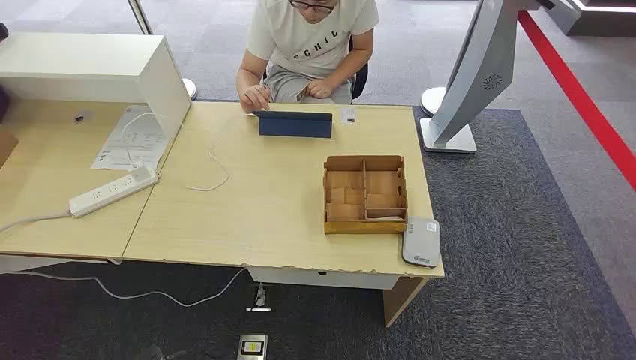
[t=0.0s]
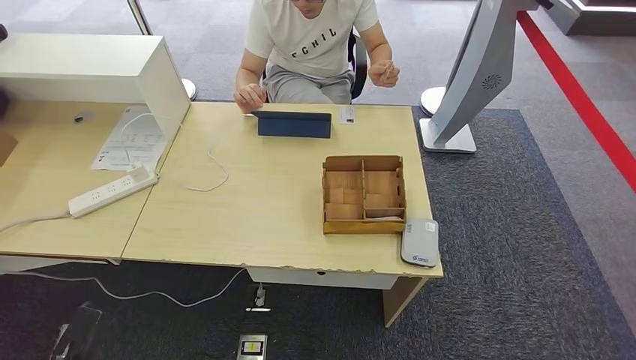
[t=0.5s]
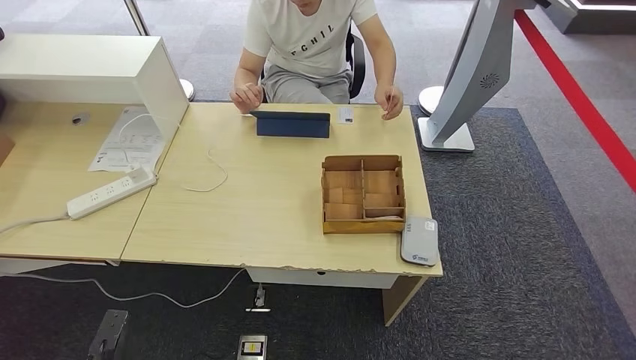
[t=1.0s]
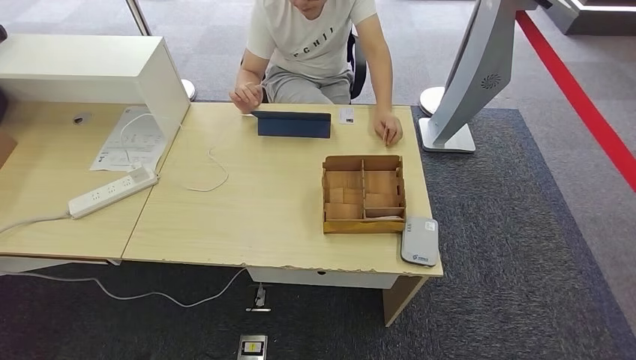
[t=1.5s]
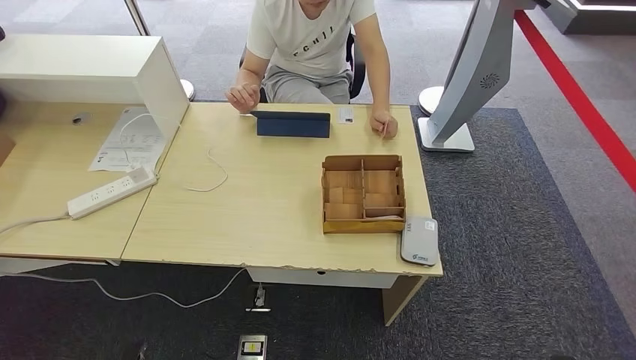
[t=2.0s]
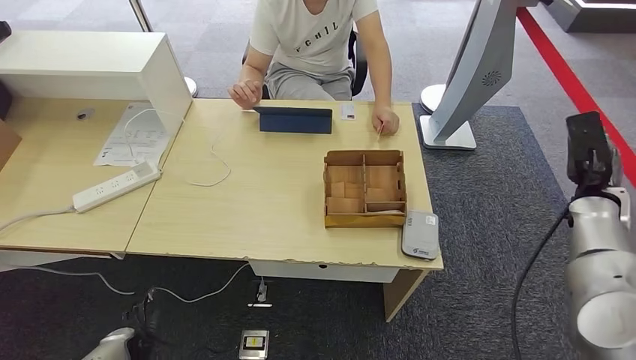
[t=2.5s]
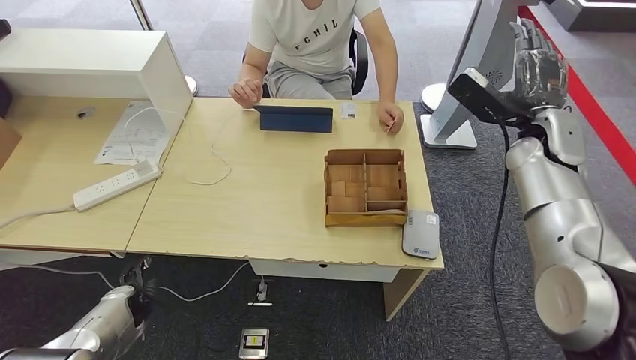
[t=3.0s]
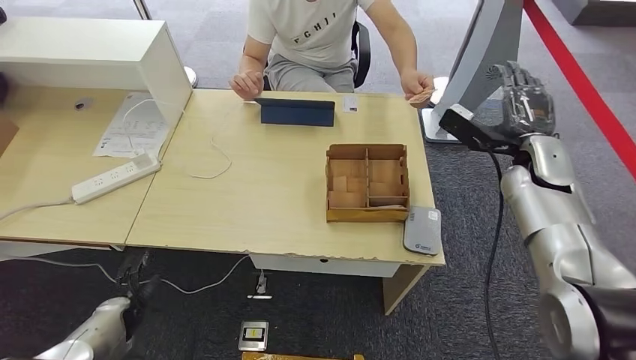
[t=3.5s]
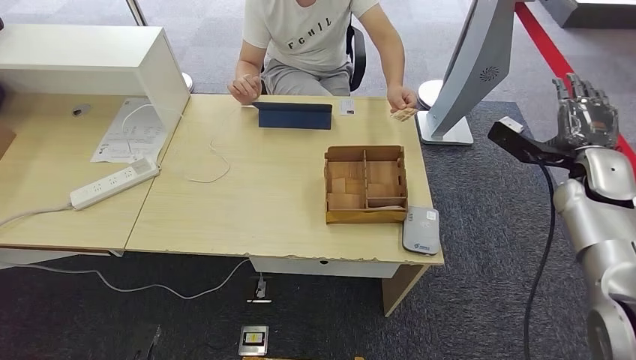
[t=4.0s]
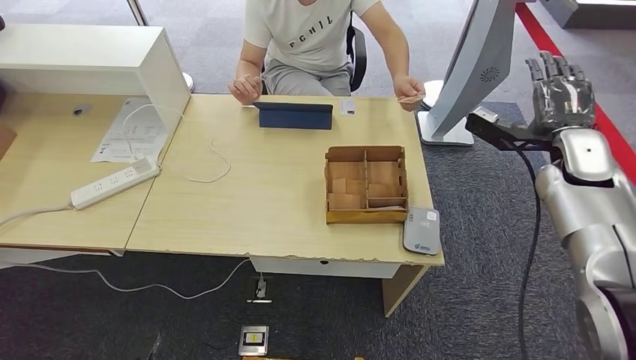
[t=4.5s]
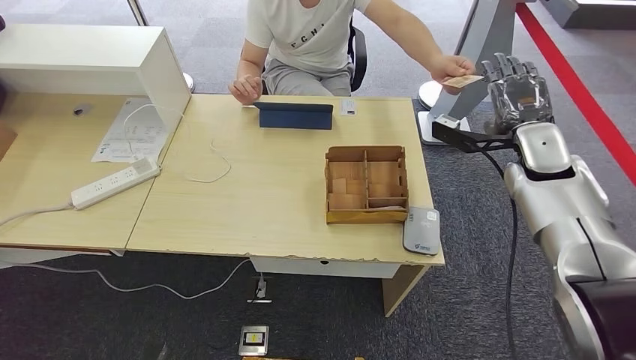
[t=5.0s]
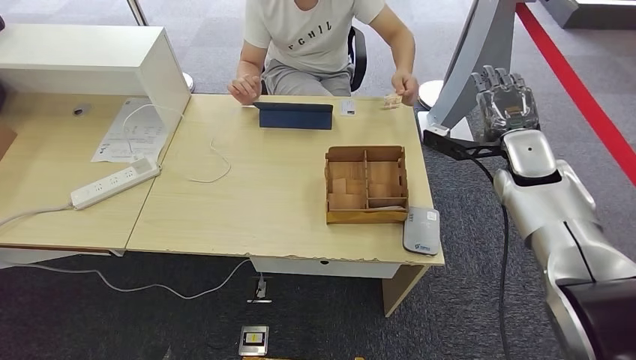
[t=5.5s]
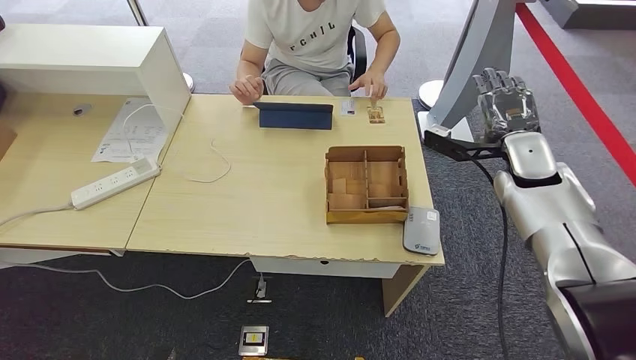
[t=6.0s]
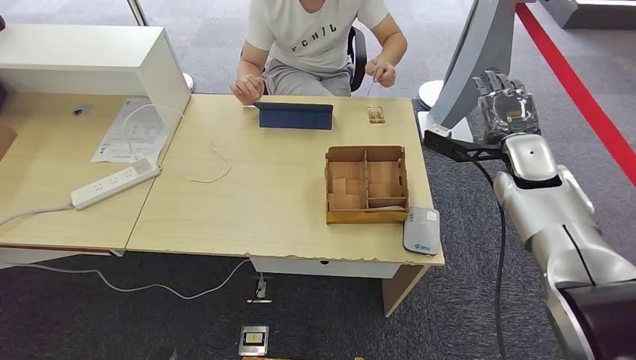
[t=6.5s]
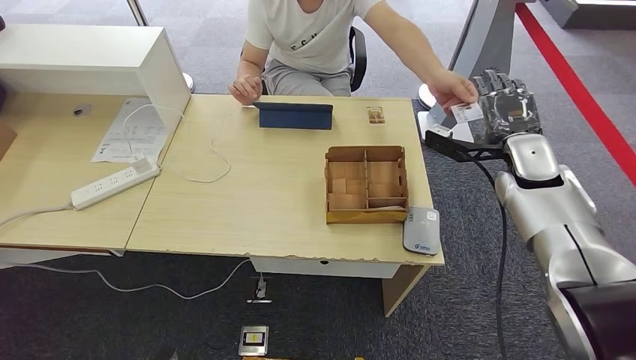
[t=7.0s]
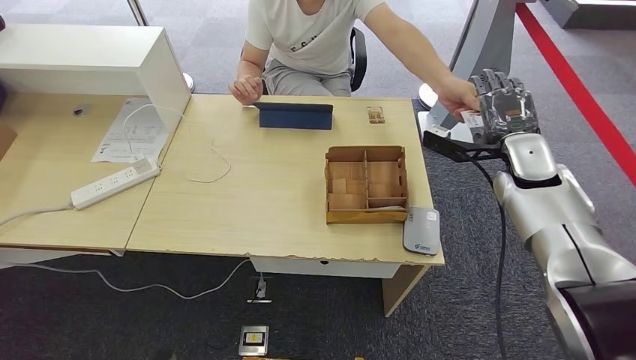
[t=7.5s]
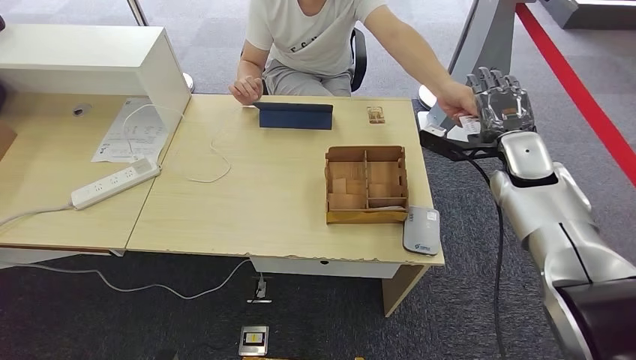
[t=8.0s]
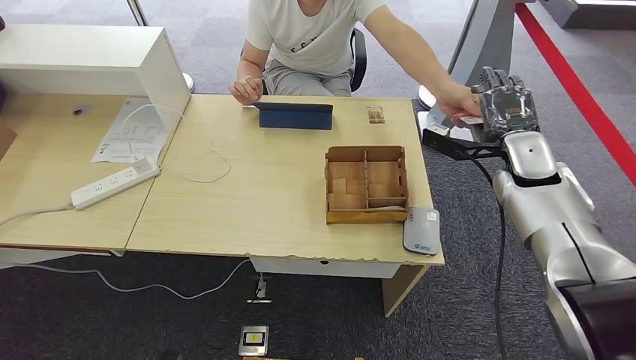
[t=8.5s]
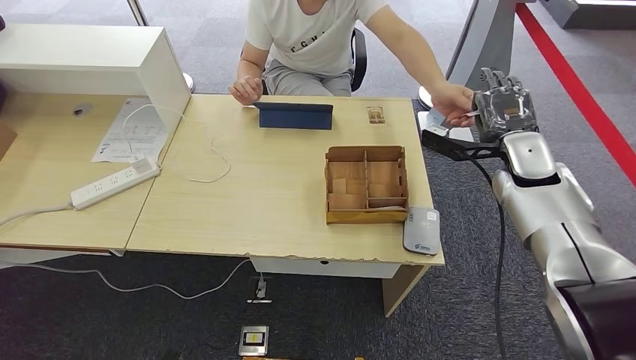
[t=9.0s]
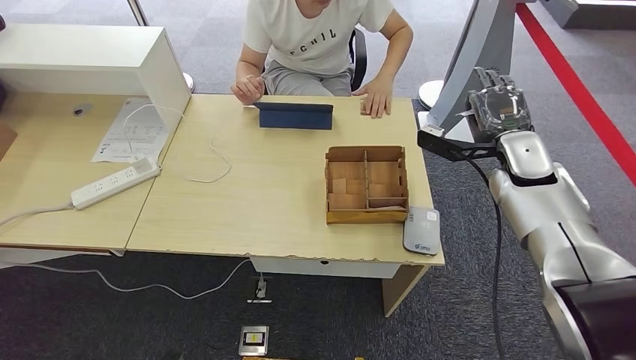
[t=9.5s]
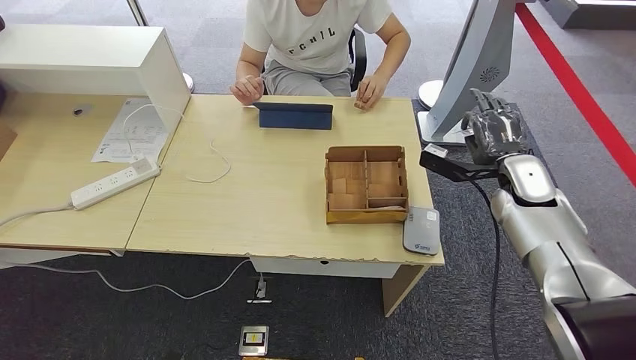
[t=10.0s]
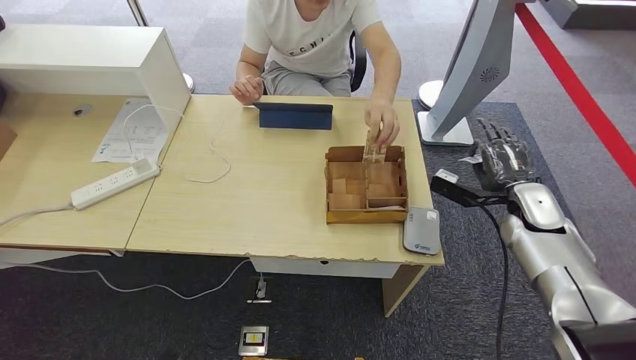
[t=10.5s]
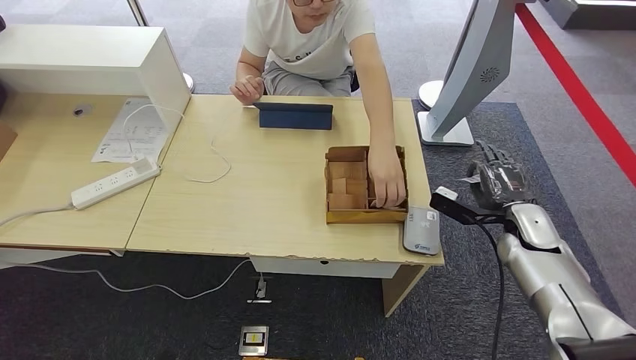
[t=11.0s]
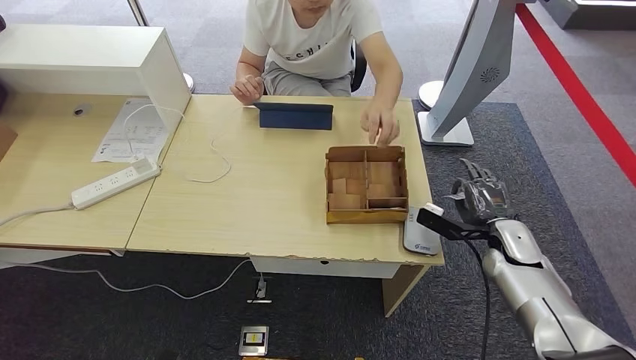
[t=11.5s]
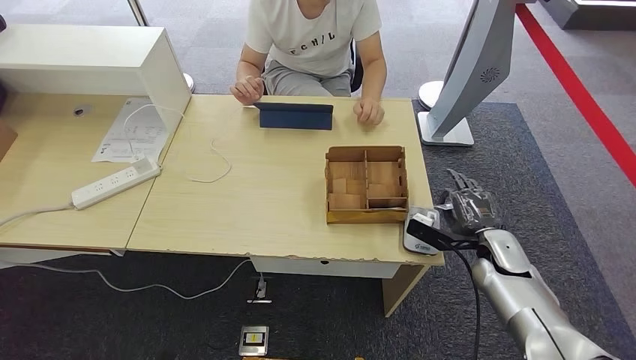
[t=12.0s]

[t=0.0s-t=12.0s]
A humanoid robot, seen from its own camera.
Step, t=0.0s to t=9.5s: Take the ID card from the person's hand.
t=4.0s to t=6.0s: The right hand moves to the left, some 10 cm.
t=6.0s to t=10.0s: The hands make only small movements.
t=10.0s to t=12.0s: The right hand is displaced downward and backward by approximately 15 cm.

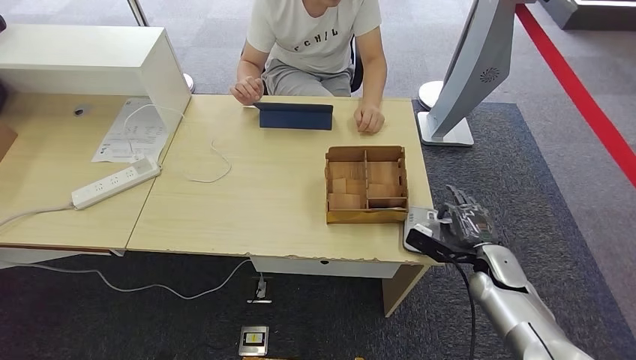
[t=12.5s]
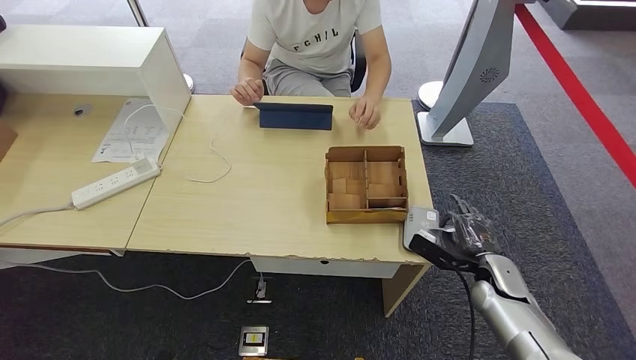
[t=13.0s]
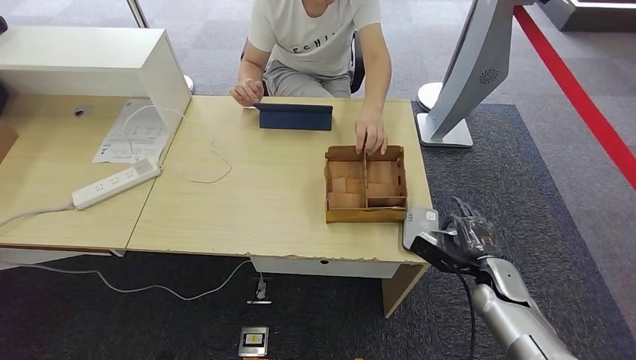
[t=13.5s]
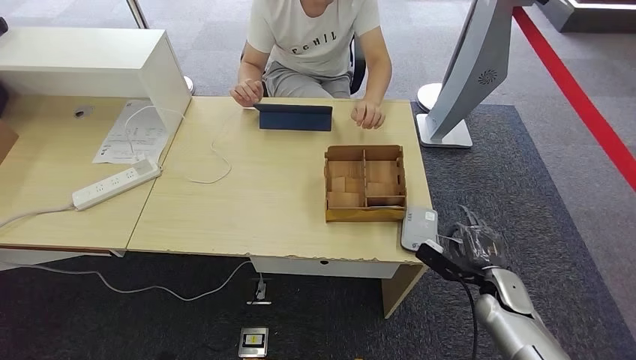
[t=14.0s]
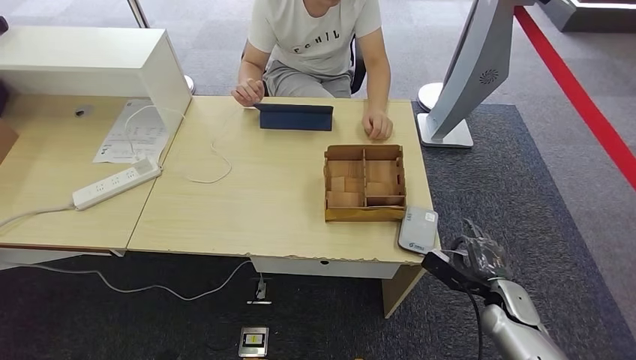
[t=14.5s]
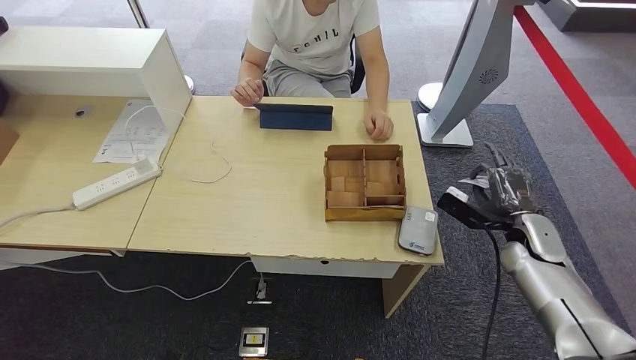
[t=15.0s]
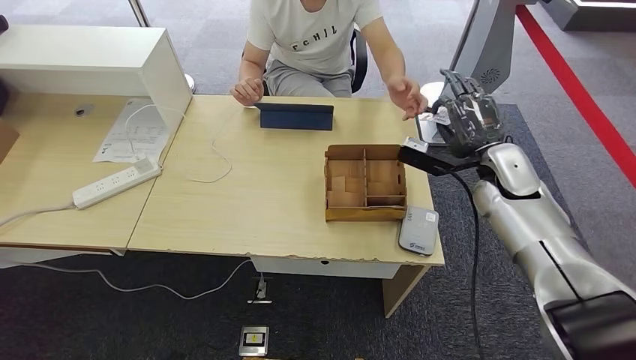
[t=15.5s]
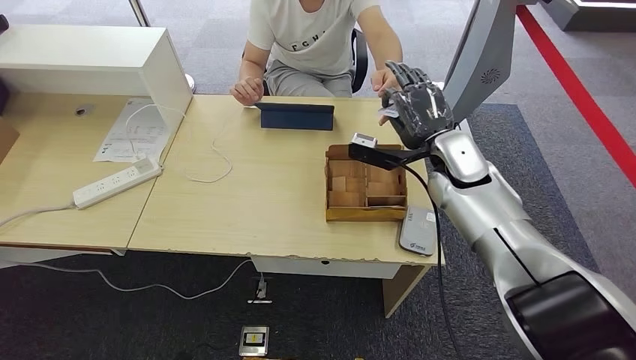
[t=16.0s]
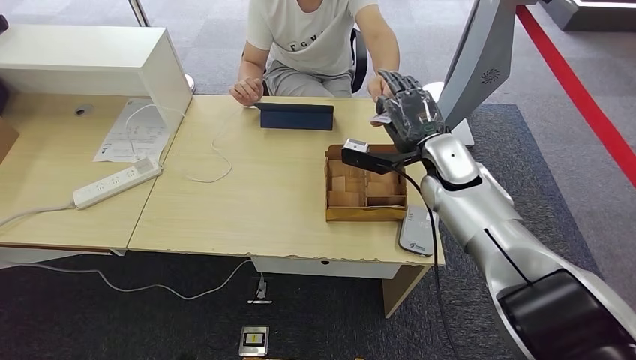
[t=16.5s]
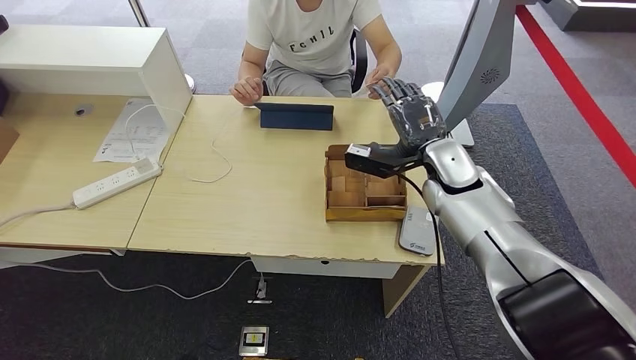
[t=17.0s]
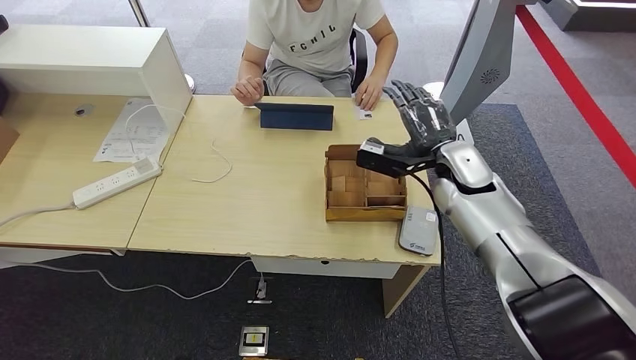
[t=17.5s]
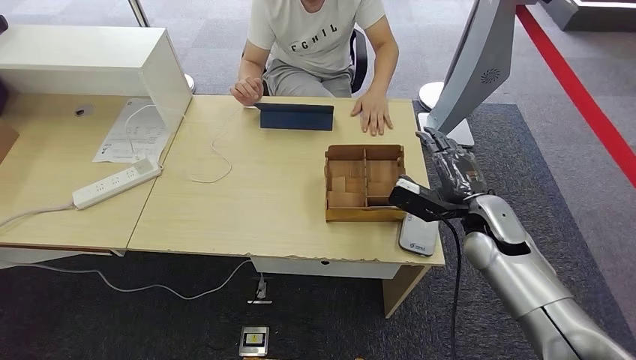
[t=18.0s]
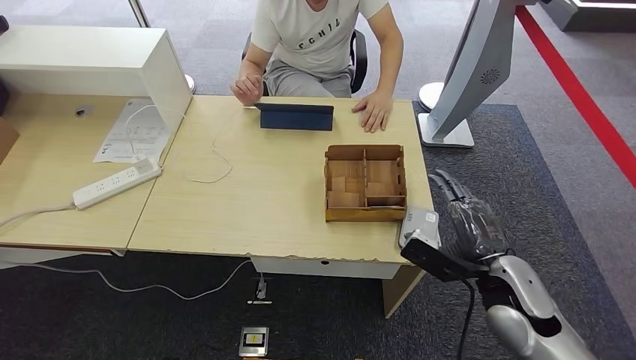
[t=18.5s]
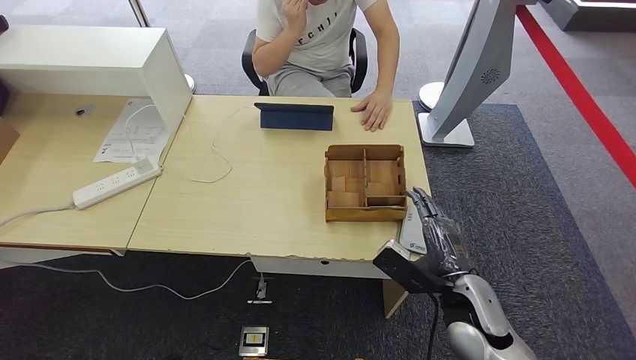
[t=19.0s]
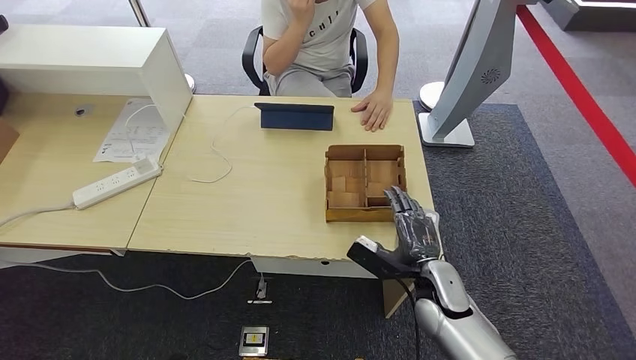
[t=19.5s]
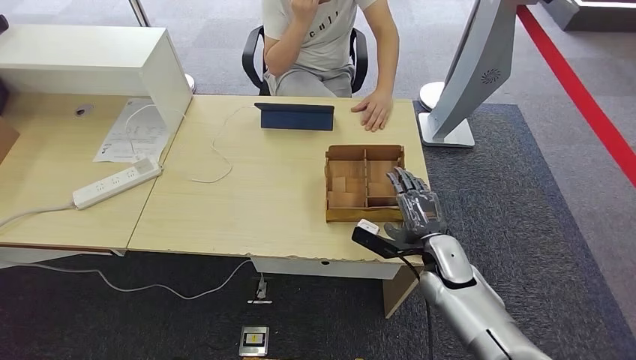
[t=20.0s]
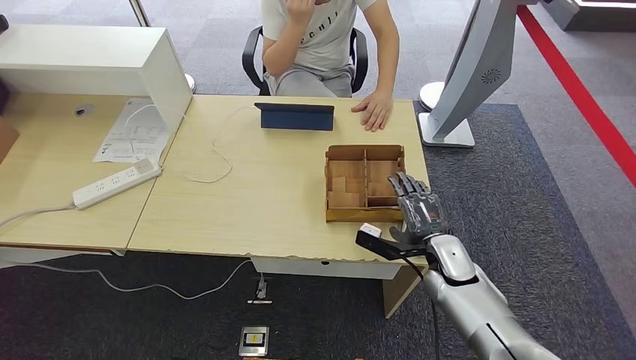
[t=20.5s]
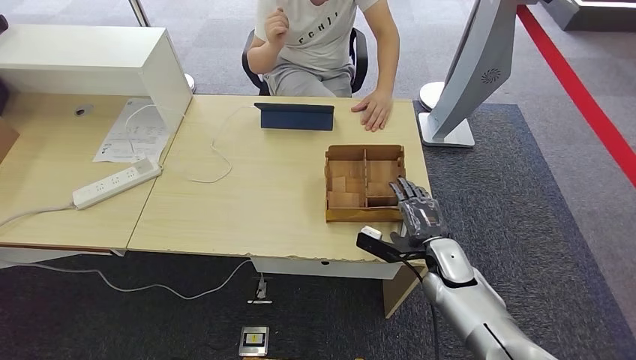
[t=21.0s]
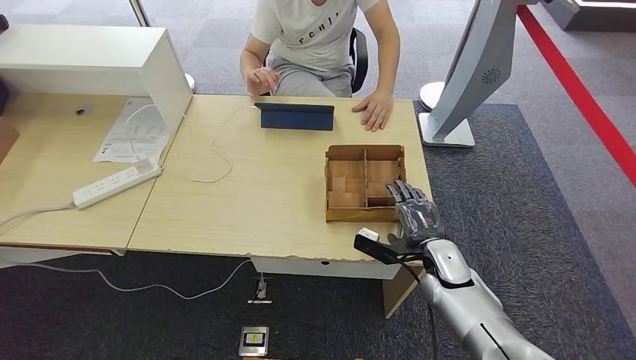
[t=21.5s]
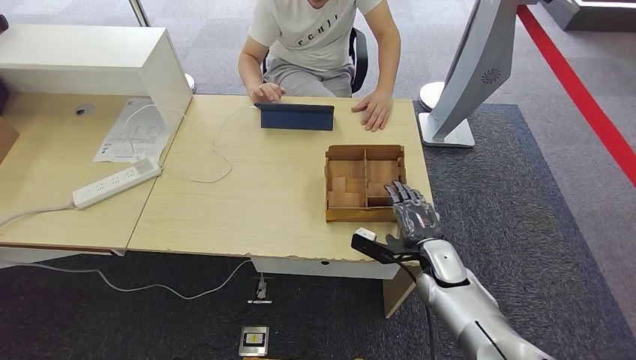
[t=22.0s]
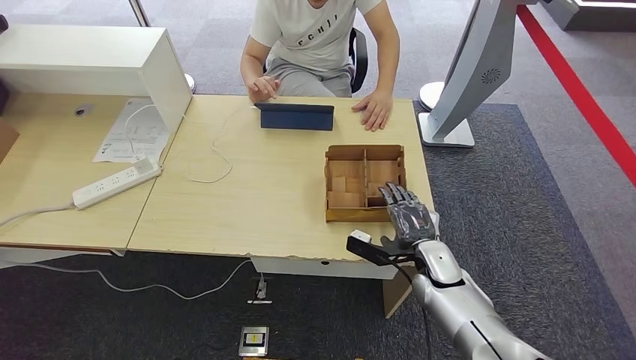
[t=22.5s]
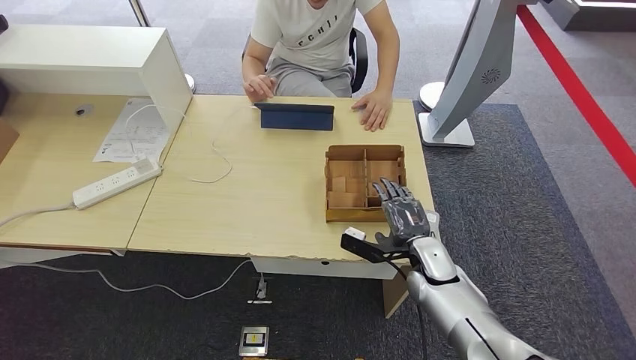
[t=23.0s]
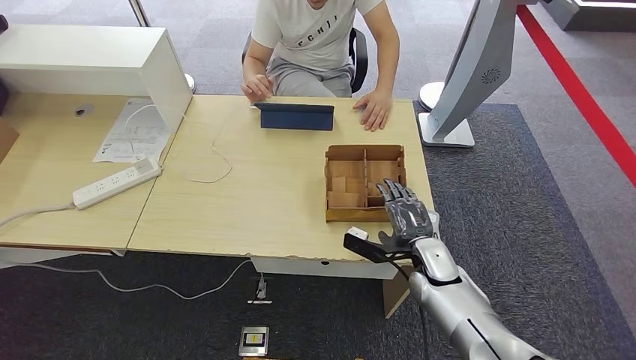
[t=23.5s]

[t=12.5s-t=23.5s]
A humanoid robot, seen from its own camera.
Step, t=14.0s to t=16.5s: Hand the ID card to the person.
t=12.5s to t=14.5s: The right hand is displaced backward by some 5 cm.
t=14.5s to t=16.0s: The right hand shifts roughly 35 cm upward, forward and to the left.
t=16.0s to t=18.0s: The right hand travels downward, to the right and backward by some 15 cm.
t=18.0s to t=20.0s: The right hand shifts some 10 cm downward and to the left, and moves some 10 cm backward and comes back.
t=20.0s to t=23.5s: The hands make only small movements.
